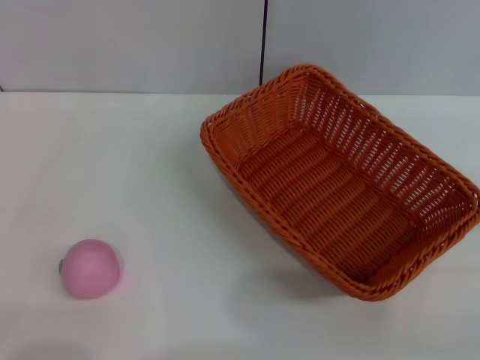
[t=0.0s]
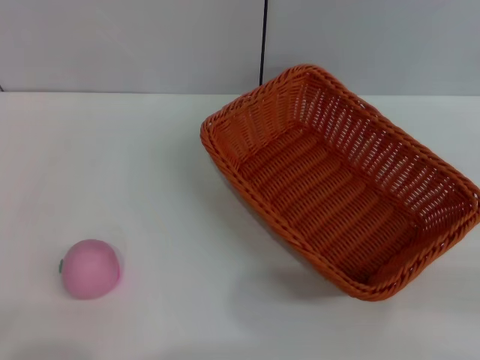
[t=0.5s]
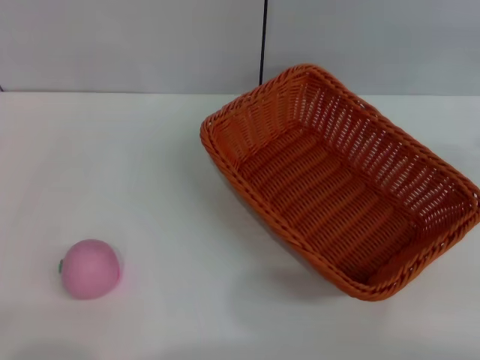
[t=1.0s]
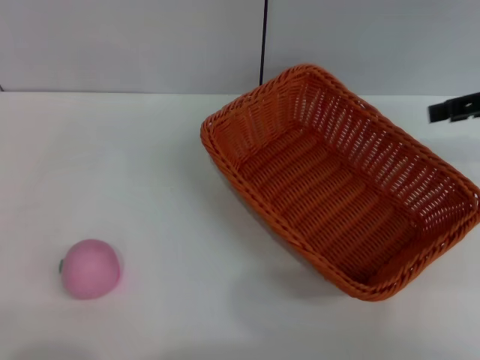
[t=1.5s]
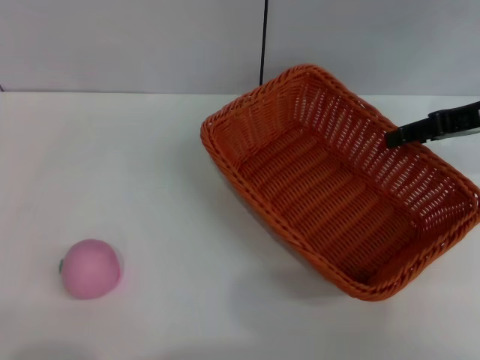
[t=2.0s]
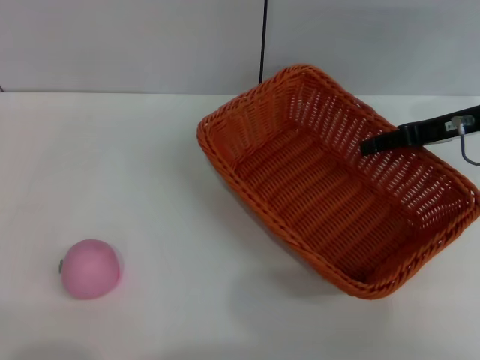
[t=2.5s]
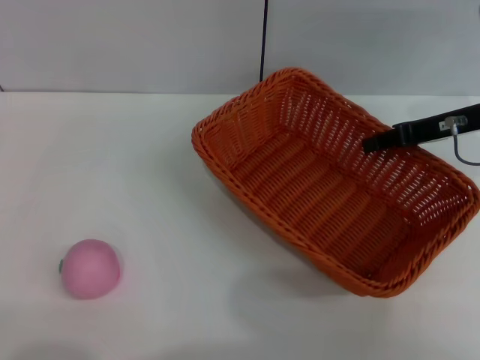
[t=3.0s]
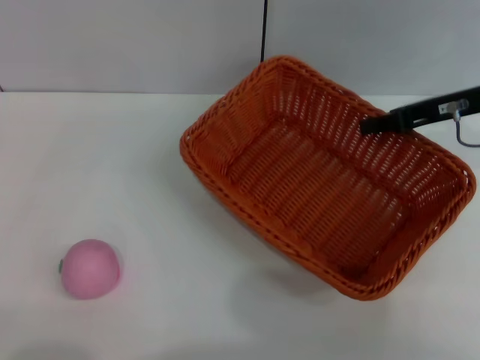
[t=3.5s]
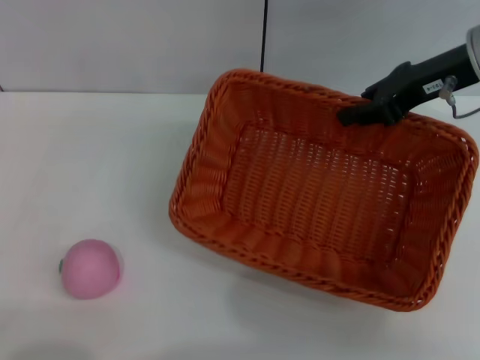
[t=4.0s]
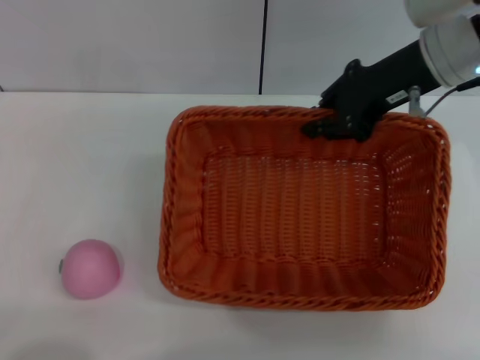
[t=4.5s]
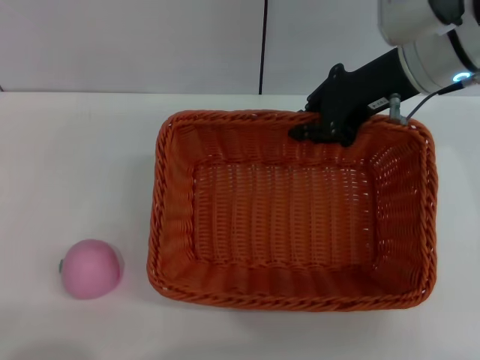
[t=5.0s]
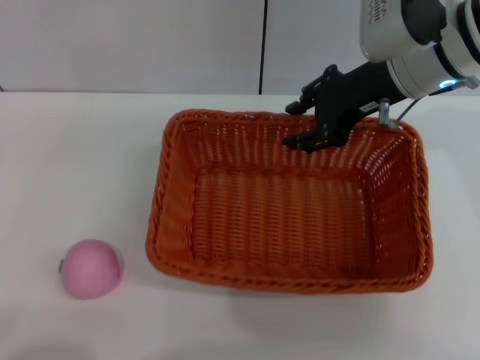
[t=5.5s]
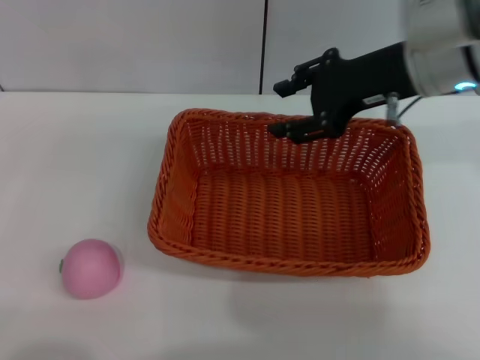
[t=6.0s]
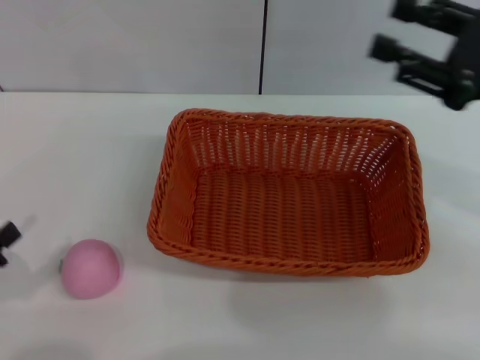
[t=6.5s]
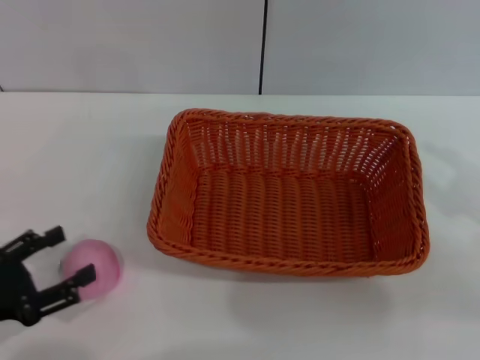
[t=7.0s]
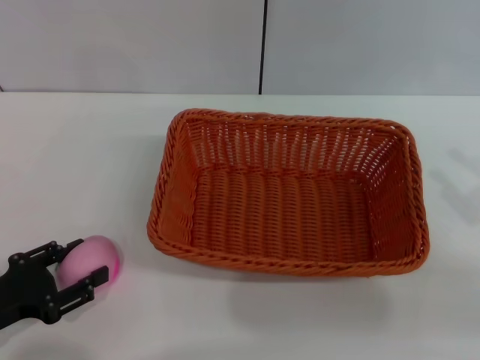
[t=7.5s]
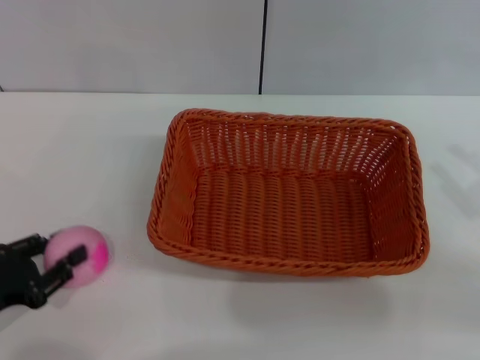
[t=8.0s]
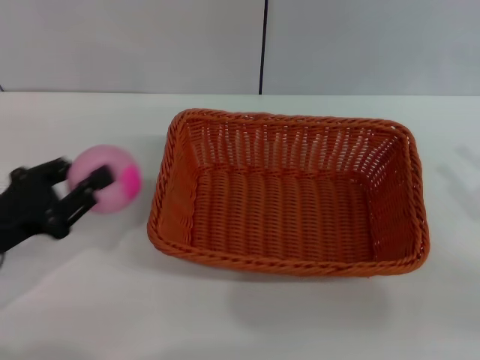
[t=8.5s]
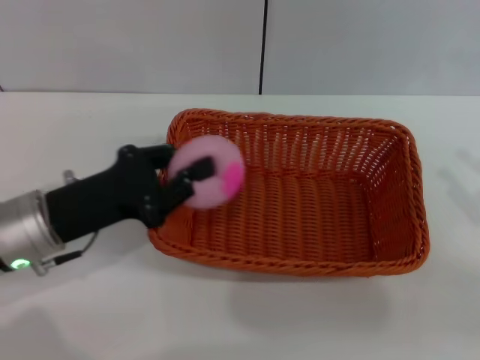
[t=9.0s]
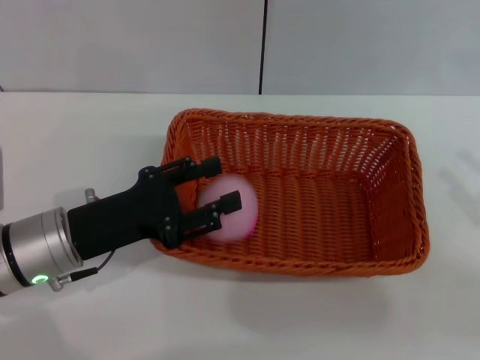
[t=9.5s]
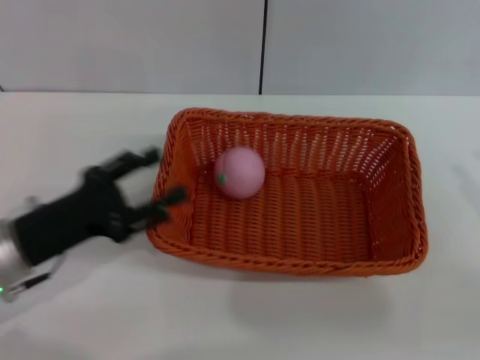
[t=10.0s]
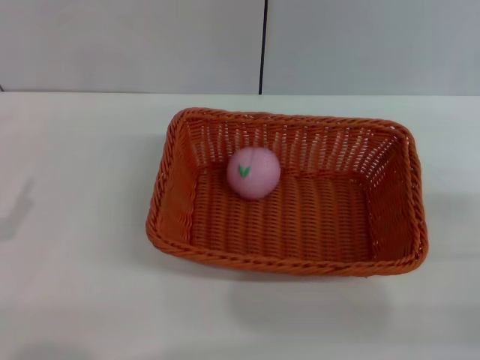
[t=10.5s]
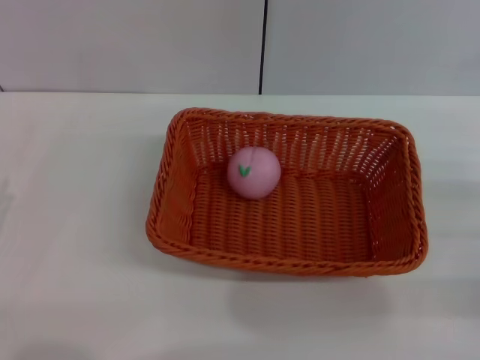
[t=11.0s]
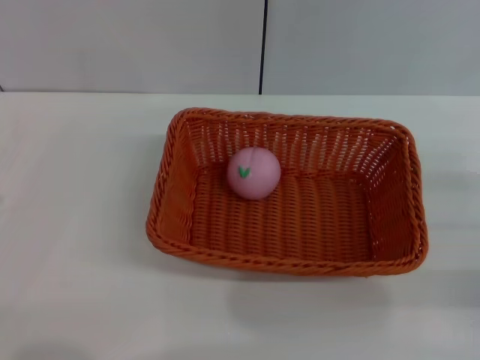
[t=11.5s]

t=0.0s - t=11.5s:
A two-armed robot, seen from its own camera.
Step, t=0.0s - t=3.5s: Pick up the light basket with the right gripper.
Step, t=4.0s - t=6.0s: Place the light basket in the center of view with the right gripper.
Step, t=6.5s - t=8.0s: Pick up the peach with the left gripper.
Step, t=8.5s - t=10.0s: Place the peach into the basket with the left gripper.
t=0.0s - t=2.0s: The right gripper goes roughly 25 cm forward and to the left.
t=2.0s - t=4.0s: The right gripper travels to the left by about 5 cm, and closes.
t=4.0s - t=6.0s: The right gripper travels to the left by about 5 cm, and opens.
t=6.0s - t=7.5s: The right gripper moves backward, to the right and downward, roughly 25 cm. Meanwhile the left gripper goes roughly 5 cm forward.
t=7.5s - t=9.5s: The left gripper is displaced to the right and forward by approximately 15 cm, and closes up.
t=9.5s - t=11.5s: The left gripper goes approximately 15 cm to the left and backward, and opens its fingers. The right gripper ends up roughly 5 cm from where it was.
